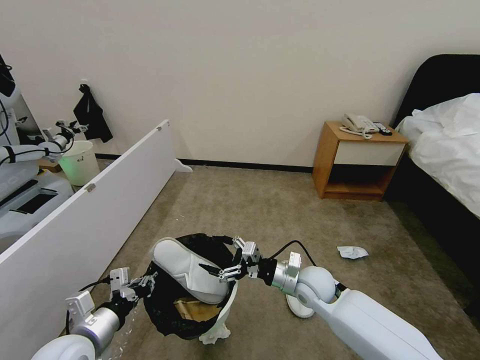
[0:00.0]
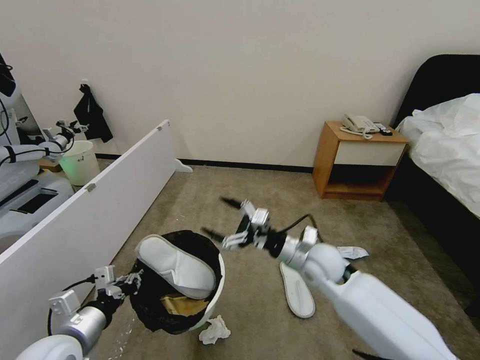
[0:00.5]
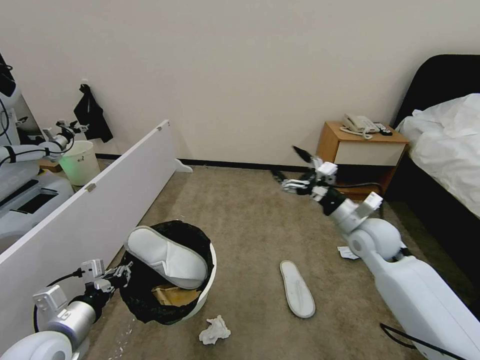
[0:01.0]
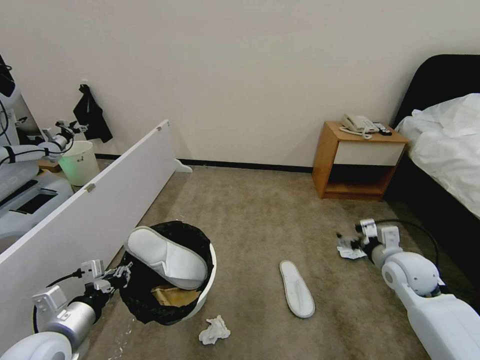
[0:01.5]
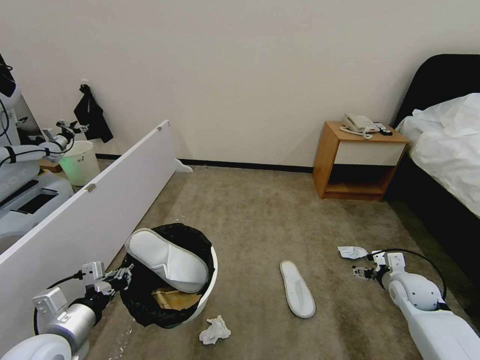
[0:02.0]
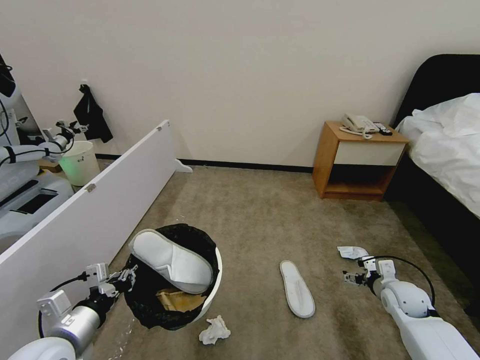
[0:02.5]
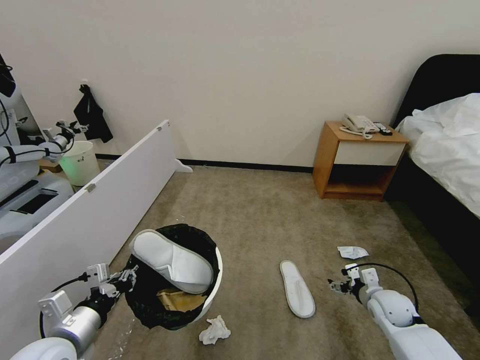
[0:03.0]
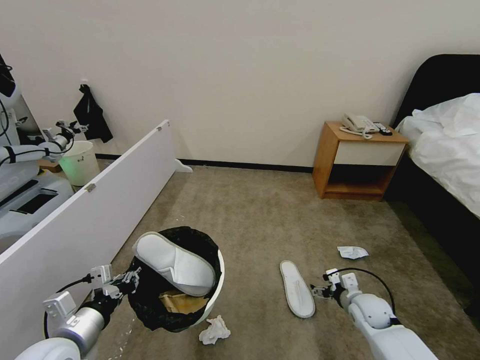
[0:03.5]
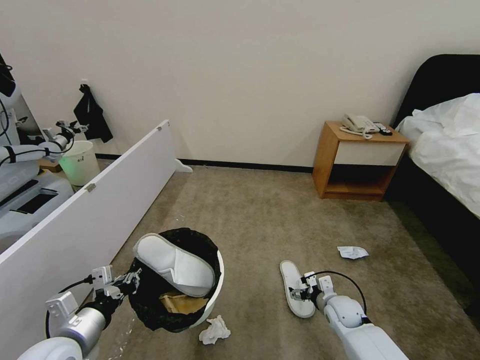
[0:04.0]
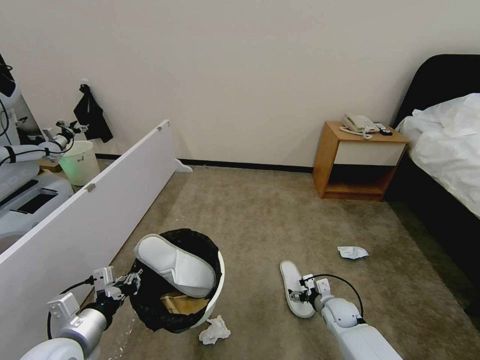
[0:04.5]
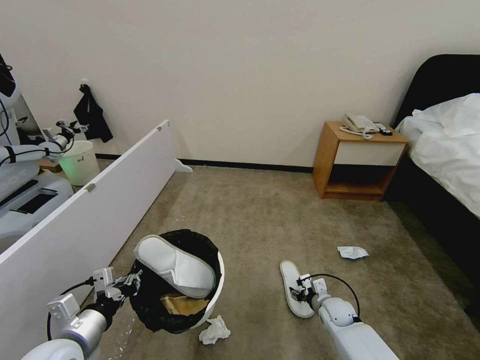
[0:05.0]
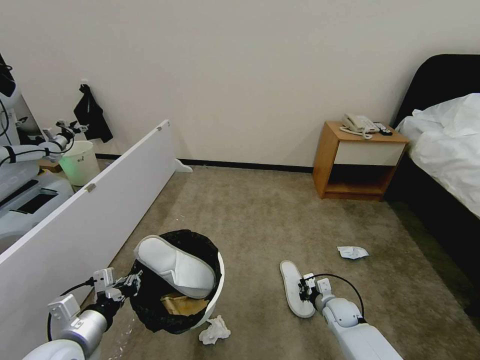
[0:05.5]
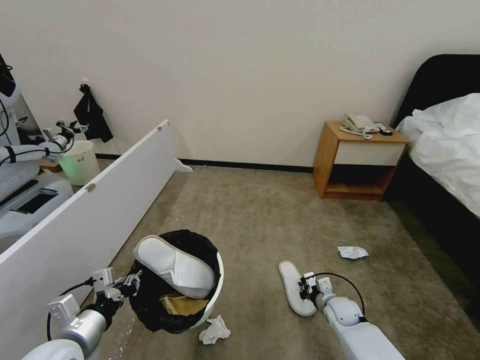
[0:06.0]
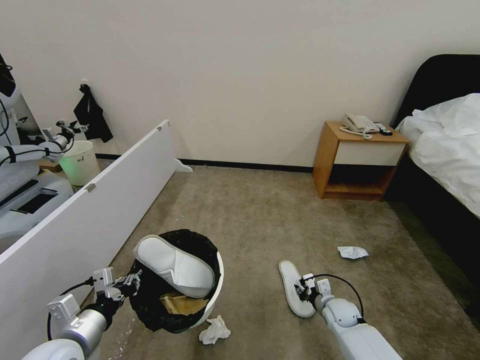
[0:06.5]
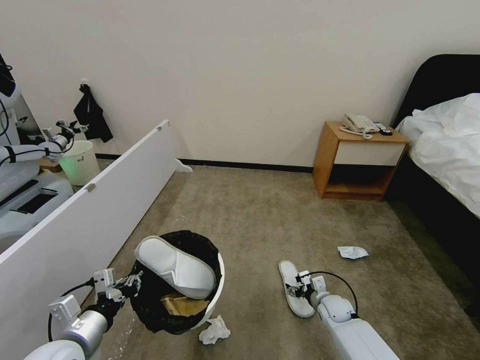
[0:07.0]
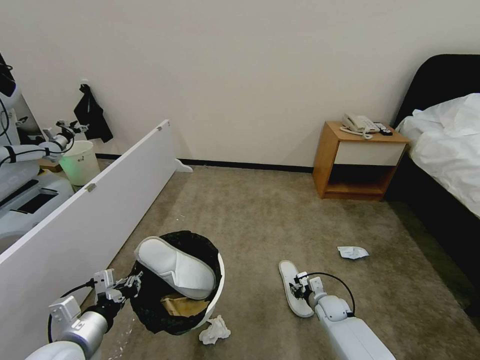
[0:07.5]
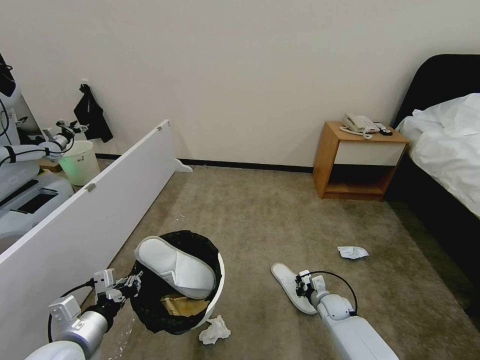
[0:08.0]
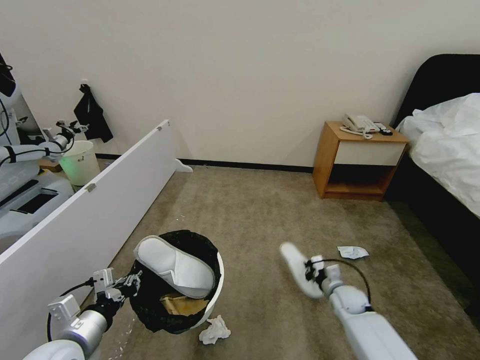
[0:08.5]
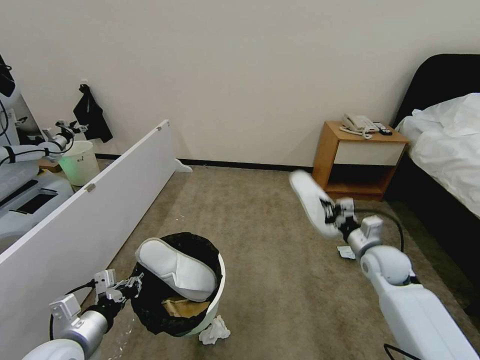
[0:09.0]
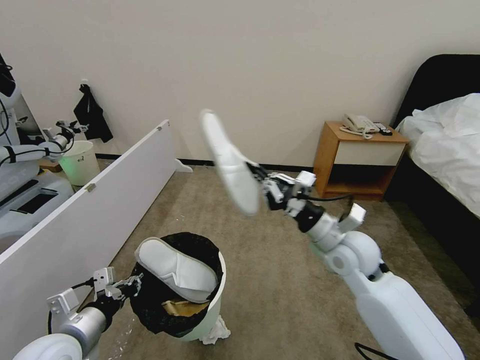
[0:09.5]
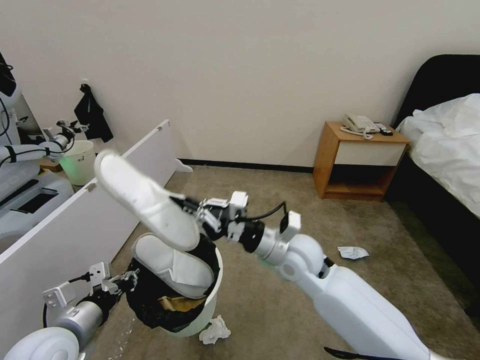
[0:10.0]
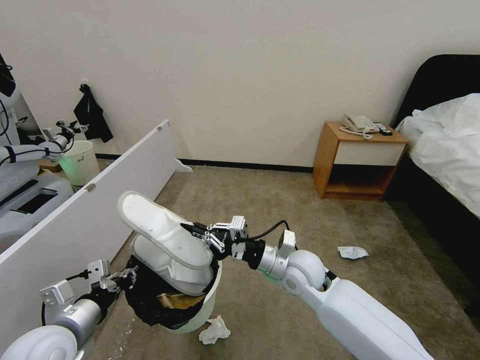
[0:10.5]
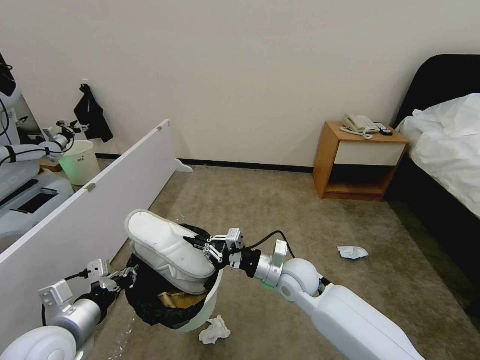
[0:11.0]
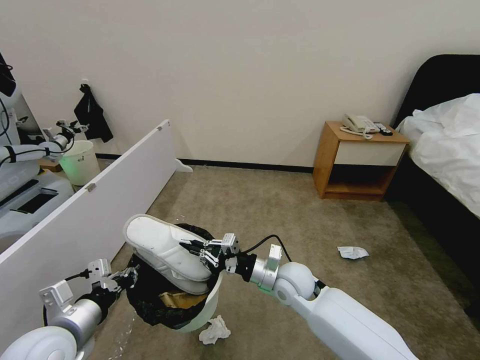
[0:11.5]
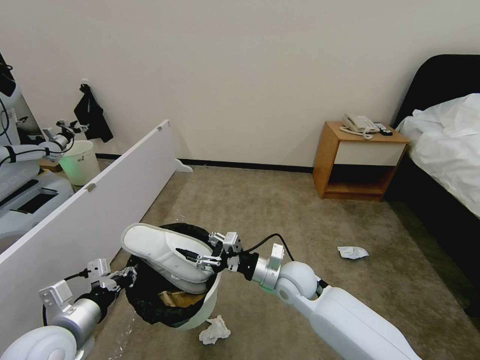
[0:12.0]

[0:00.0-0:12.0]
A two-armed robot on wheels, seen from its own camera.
Task of the whole recording: Pick up the trash bin, then pick up the garbage from the floor and place it into the trash bin.
0:00.0 to 0:02.0: The right gripper moves to the right, approximately 25 cm.
0:02.0 to 0:04.0: The right gripper heads to the left and downward, covering about 20 cm.
0:04.0 to 0:06.0: The right gripper closes up.
0:06.0 to 0:08.0: The right gripper opens, then closes again.
0:08.0 to 0:10.0: The right gripper shifts roughly 35 cm upward and to the left.
0:10.0 to 0:12.0: The right gripper is displaced downward by roughly 10 cm, and opens up.

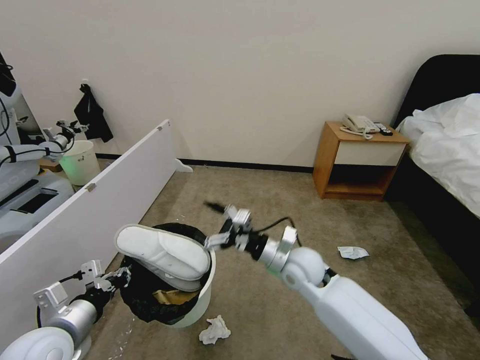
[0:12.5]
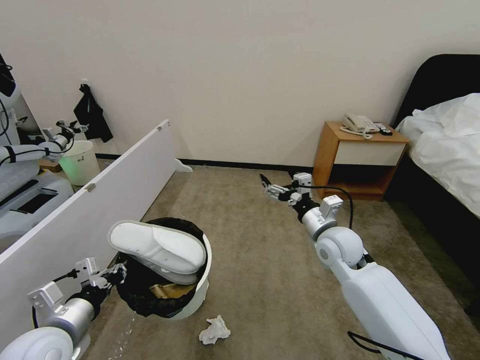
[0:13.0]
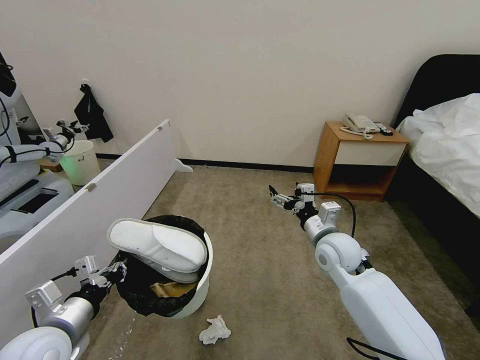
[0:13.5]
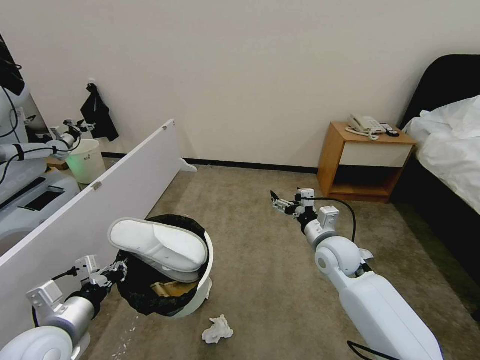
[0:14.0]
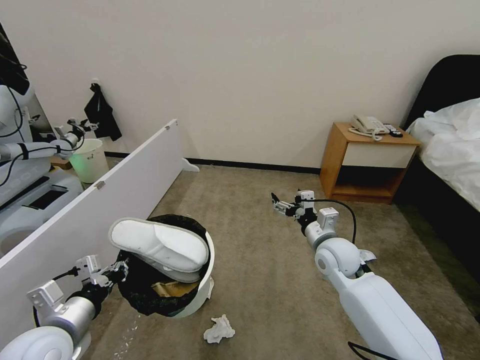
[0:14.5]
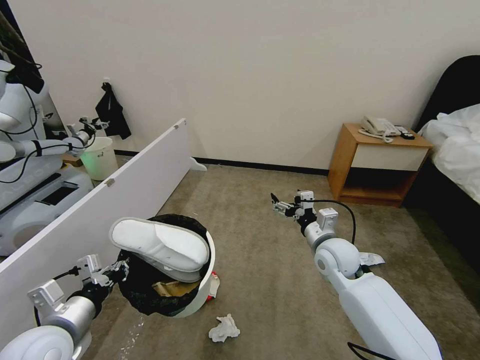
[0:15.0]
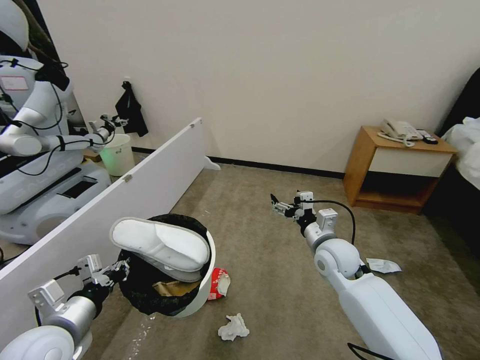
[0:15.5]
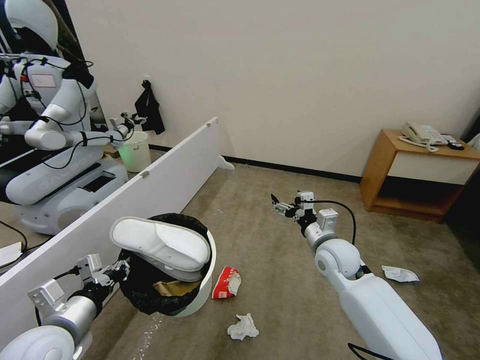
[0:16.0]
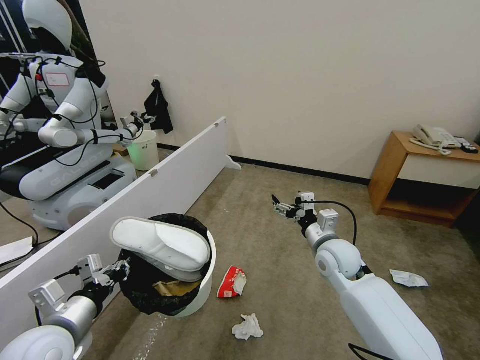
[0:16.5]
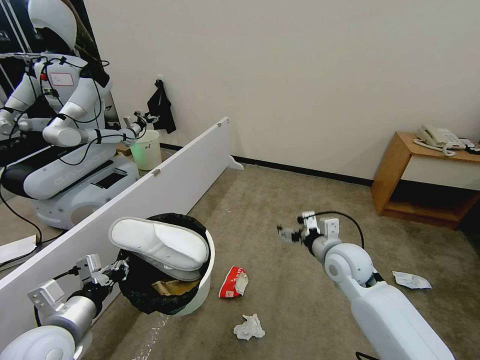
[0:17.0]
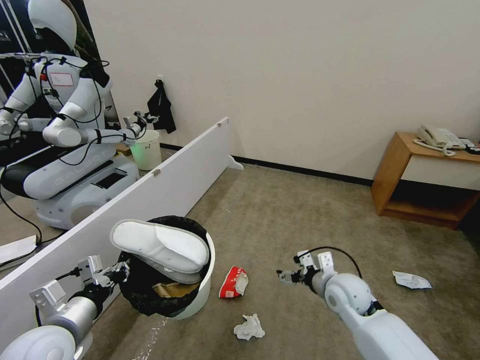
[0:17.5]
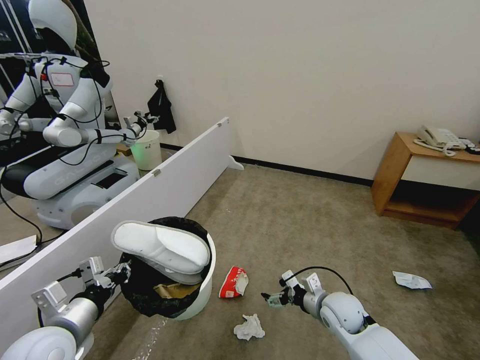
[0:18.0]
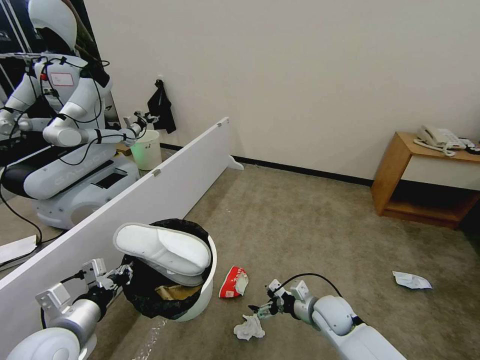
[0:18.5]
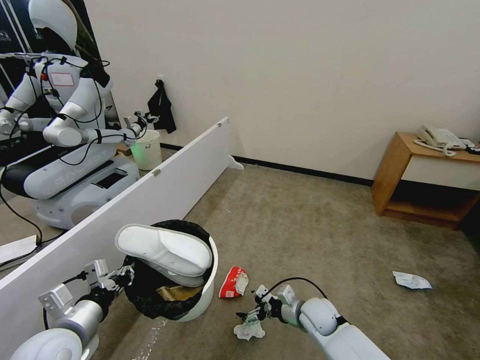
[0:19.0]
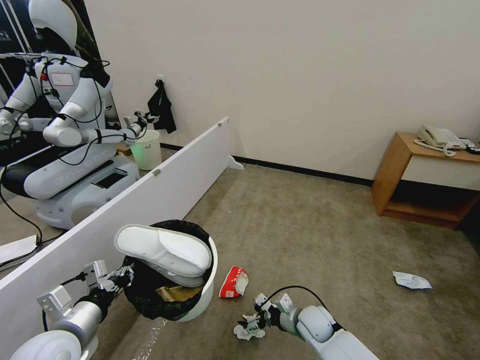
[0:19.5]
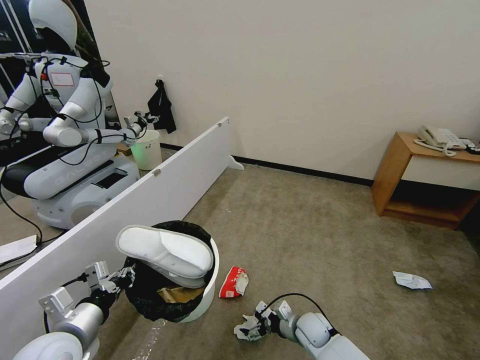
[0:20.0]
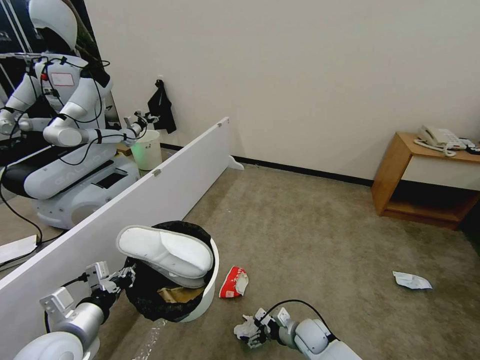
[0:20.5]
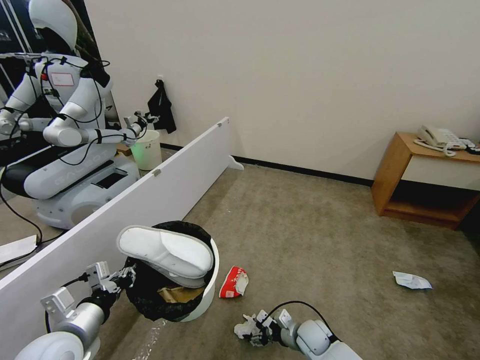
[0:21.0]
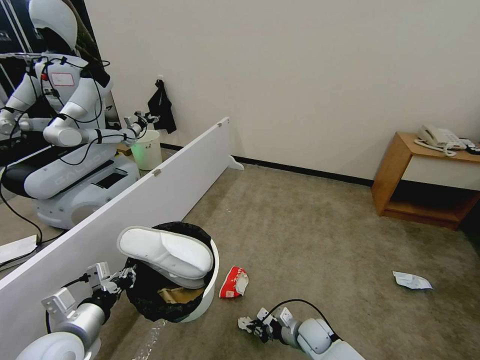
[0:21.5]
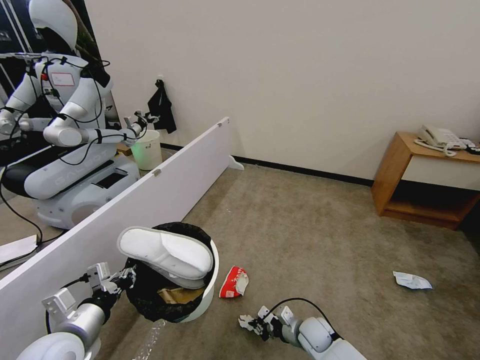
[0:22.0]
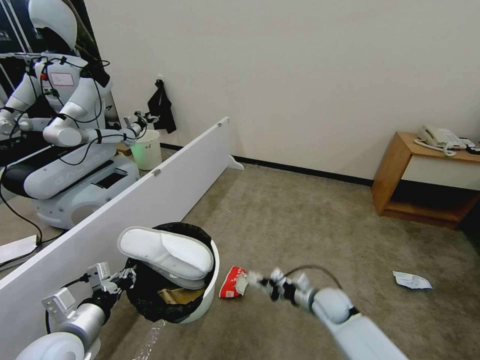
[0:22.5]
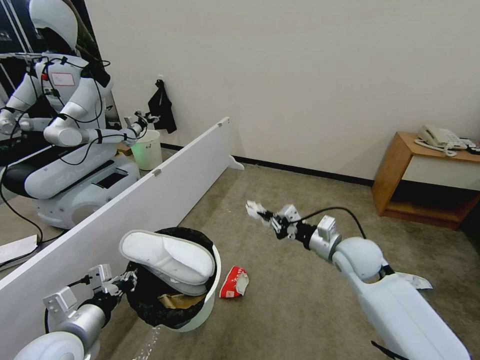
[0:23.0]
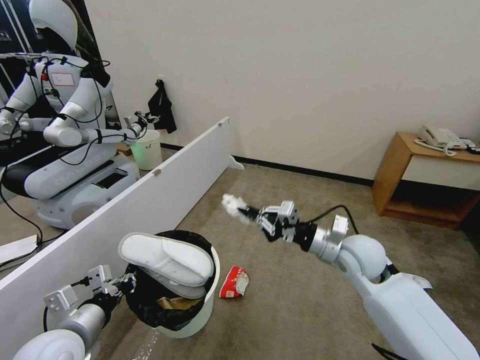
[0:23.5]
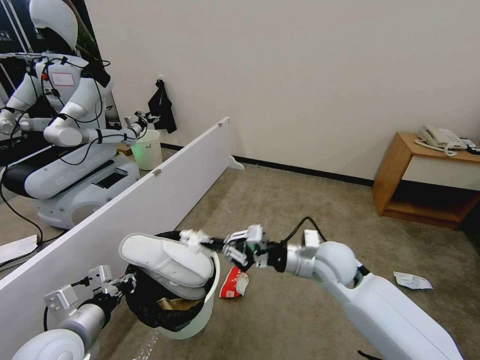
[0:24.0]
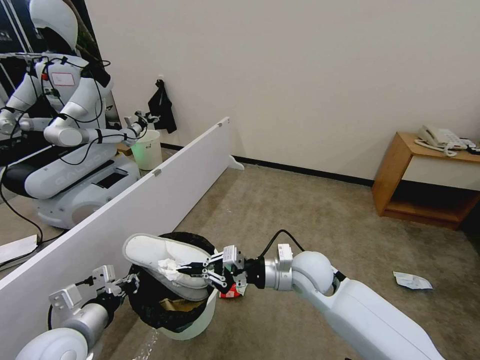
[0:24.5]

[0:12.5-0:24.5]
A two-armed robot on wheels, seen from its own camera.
Task of the whole recording: Pick up the trash bin, then pick up the garbage from the floor and place it into the trash bin.
0:12.5 to 0:14.5: The right gripper is displaced to the right by approximately 10 cm.
0:16.5 to 0:18.5: The right gripper is displaced downward by about 15 cm.
0:18.5 to 0:20.5: The right gripper shifts about 10 cm downward.
0:20.5 to 0:22.5: The right gripper travels upward by roughly 10 cm, and closes up.
0:22.5 to 0:24.5: The right gripper is displaced upward and to the left by approximately 20 cm.

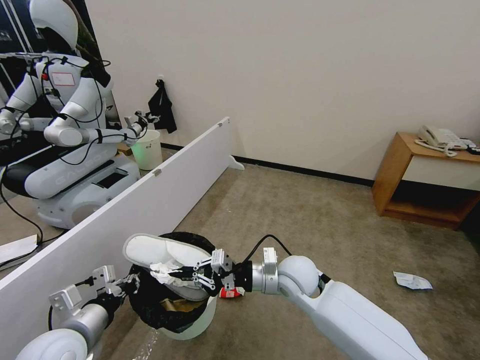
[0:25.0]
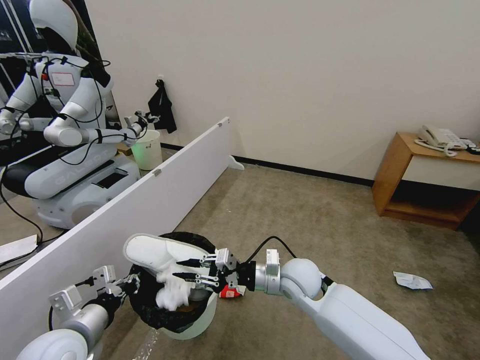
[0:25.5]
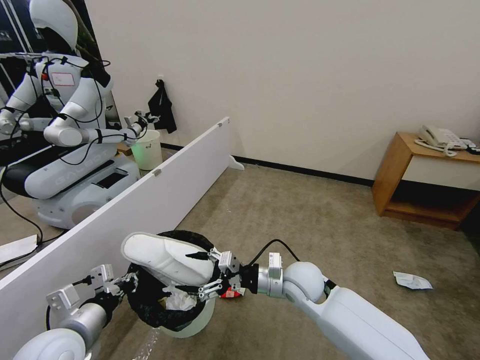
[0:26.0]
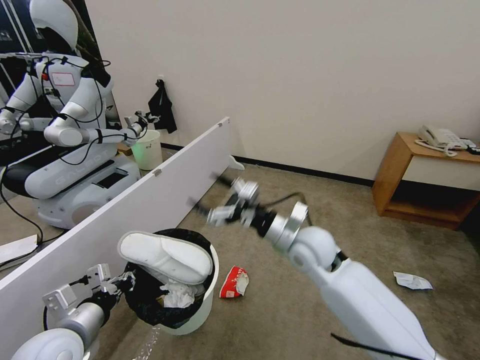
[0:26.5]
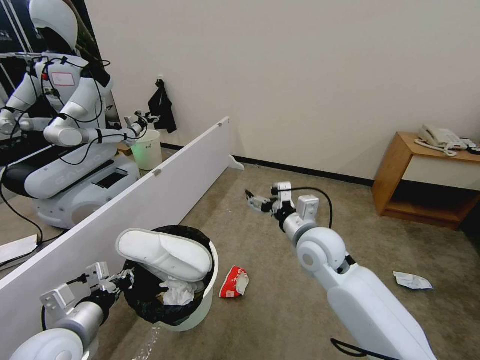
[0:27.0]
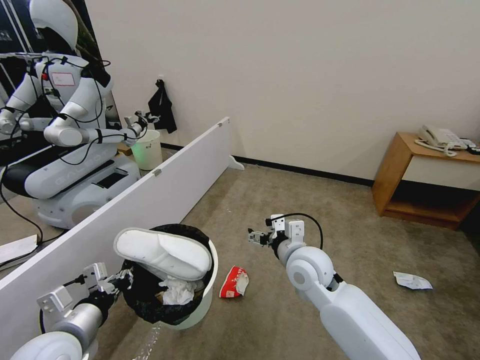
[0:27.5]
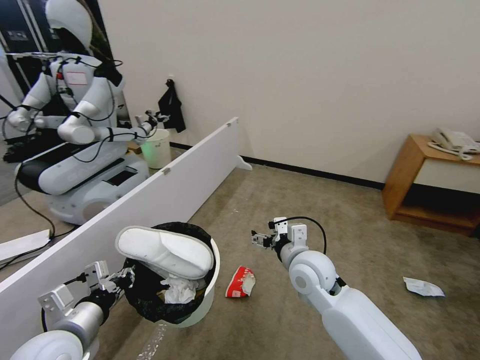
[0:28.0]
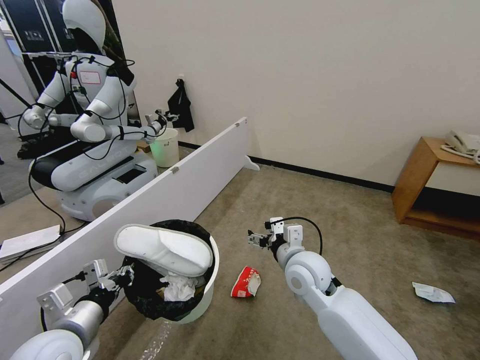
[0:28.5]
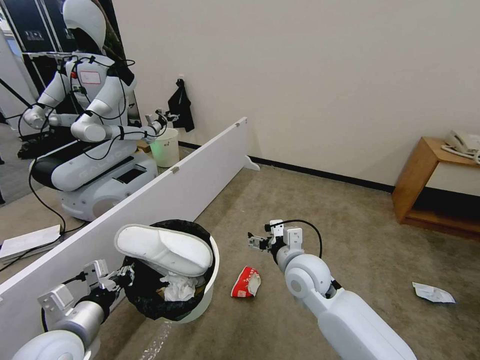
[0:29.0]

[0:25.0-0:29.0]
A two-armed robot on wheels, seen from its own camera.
Task of the whole recording: Pick up the trash bin, then pick up the garbage from the floor and place it into the trash bin.
0:25.0 to 0:27.0: The right gripper is displaced upward by roughly 10 cm, and opens.
0:27.0 to 0:29.0: The right gripper shifts some 5 cm downward.
